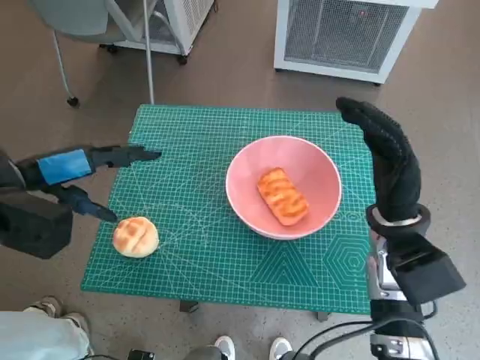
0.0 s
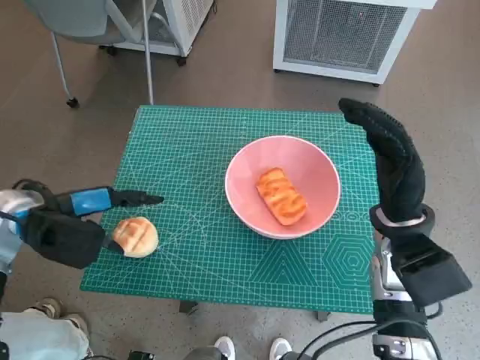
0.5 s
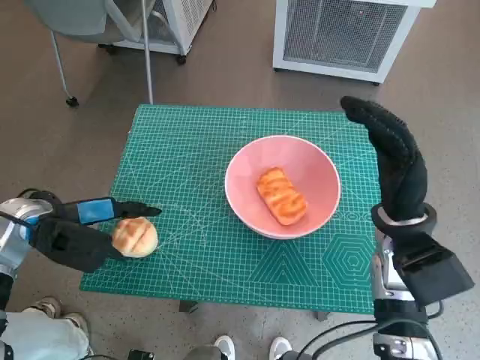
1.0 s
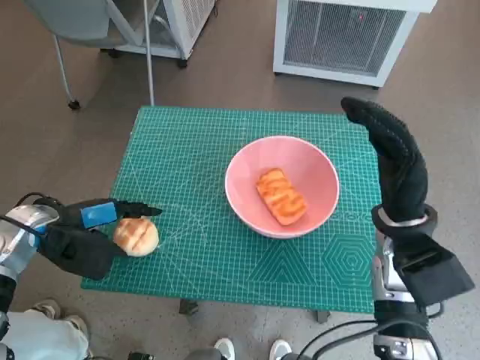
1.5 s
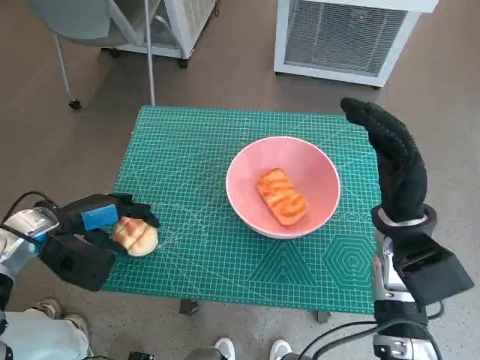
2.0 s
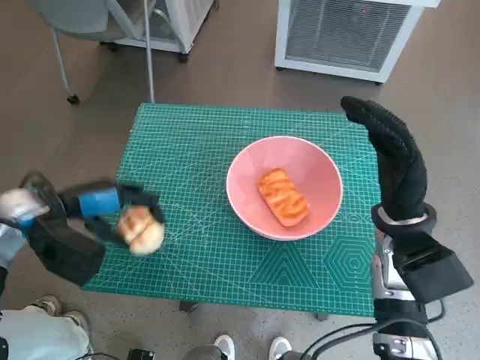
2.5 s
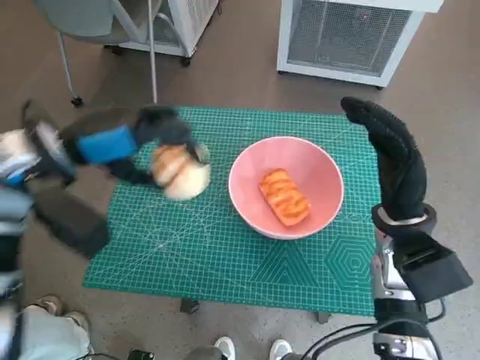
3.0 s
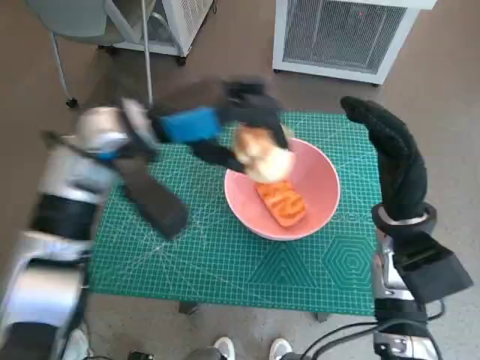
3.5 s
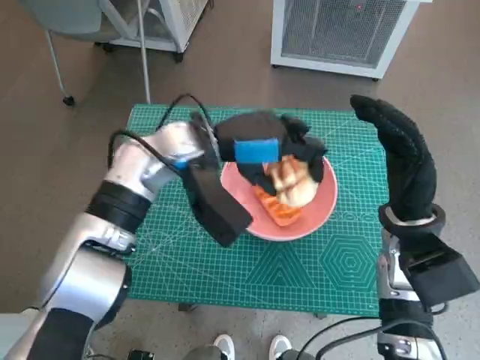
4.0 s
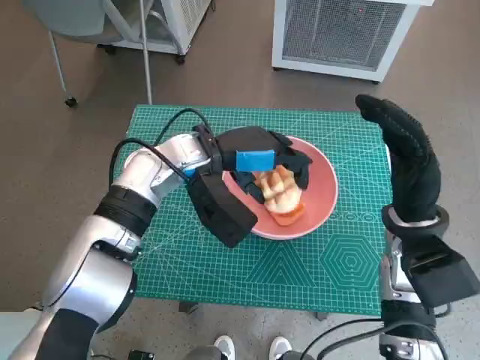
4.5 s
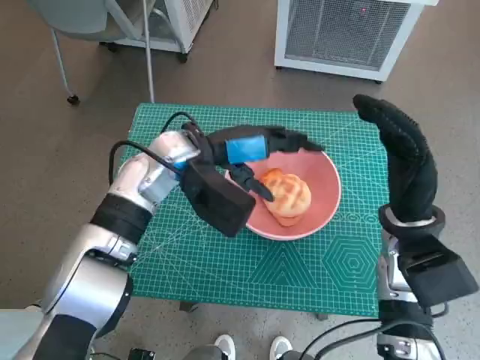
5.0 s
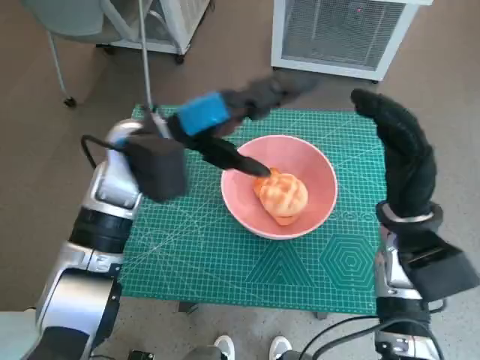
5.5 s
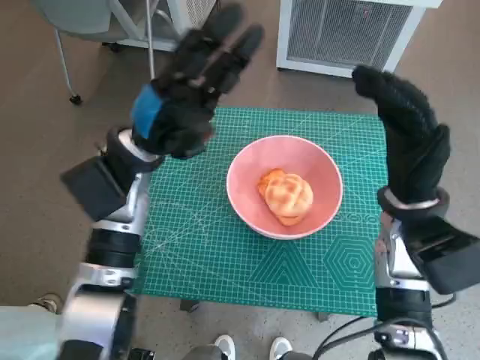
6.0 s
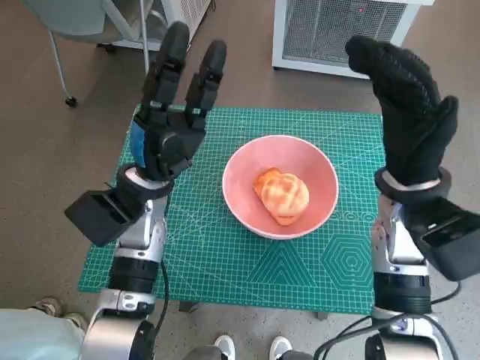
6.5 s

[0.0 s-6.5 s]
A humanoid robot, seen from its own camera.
Task of the whole recording: Push the bowl to the center of the table and put the bread into the bowl.
Step, 2.0 to 4.5 s: Place the round bread in pink bowl with left hand.
0.0 to 2.0 s: The left hand shifts about 10 cm downward.
2.0 to 4.5 s: The left hand goes roughly 20 cm to the right.
4.5 to 6.5 s: The left hand travels to the left by some 5 cm. The right hand ends up some 5 cm from where it was.

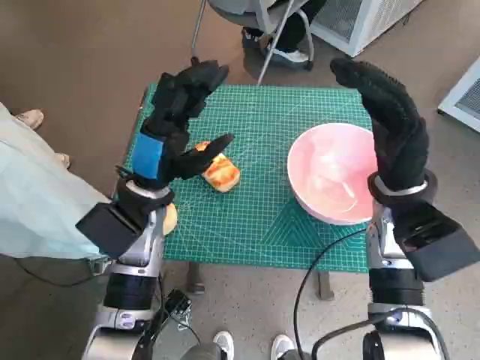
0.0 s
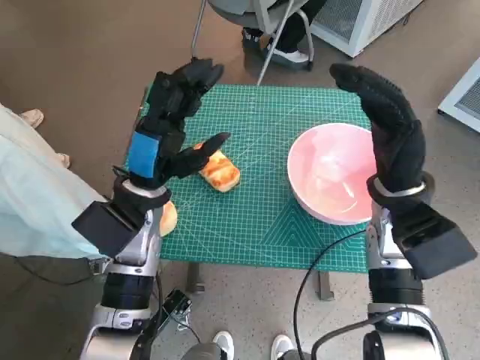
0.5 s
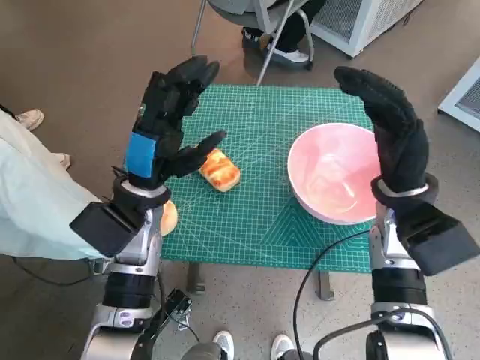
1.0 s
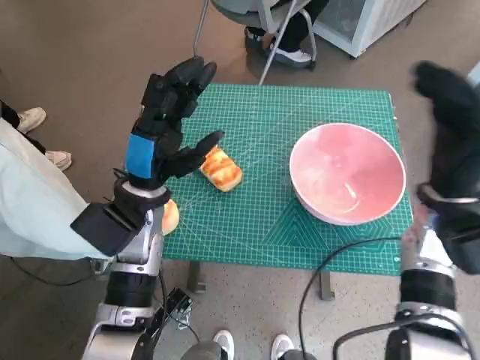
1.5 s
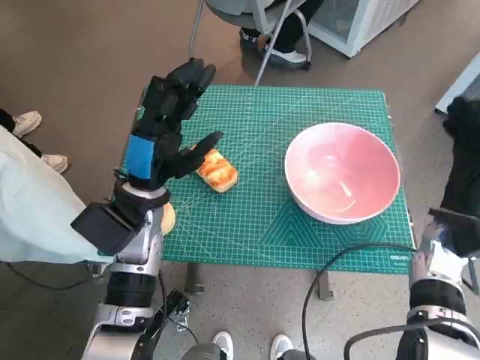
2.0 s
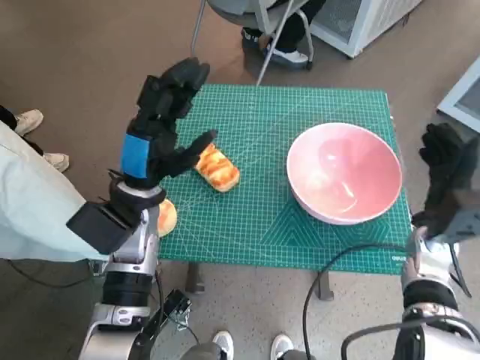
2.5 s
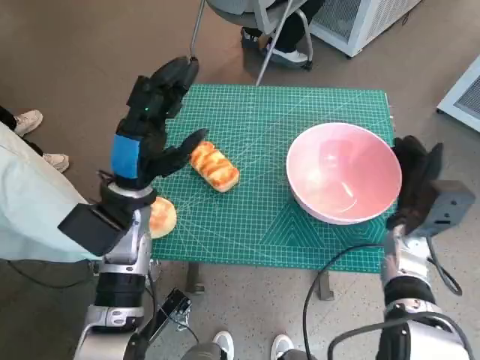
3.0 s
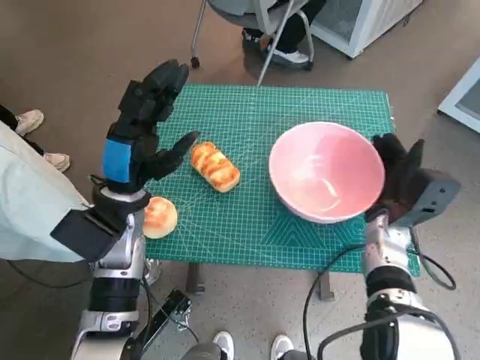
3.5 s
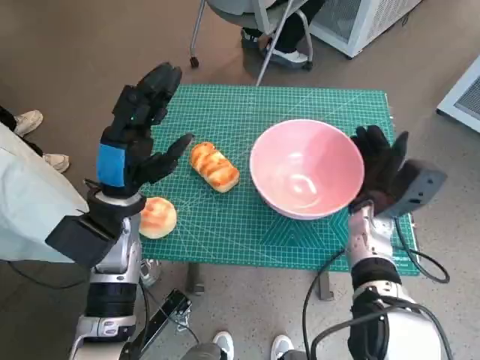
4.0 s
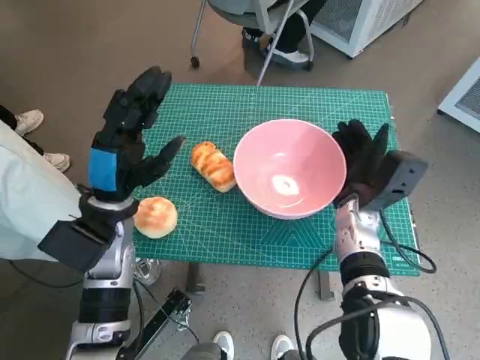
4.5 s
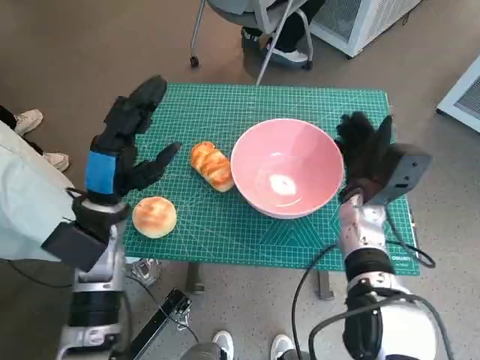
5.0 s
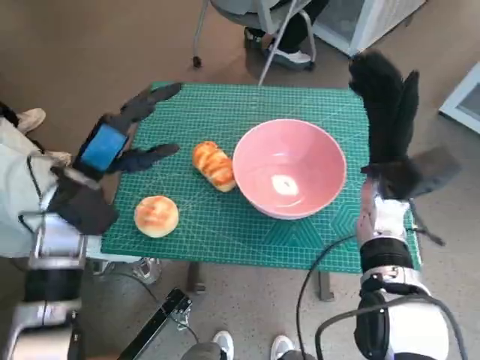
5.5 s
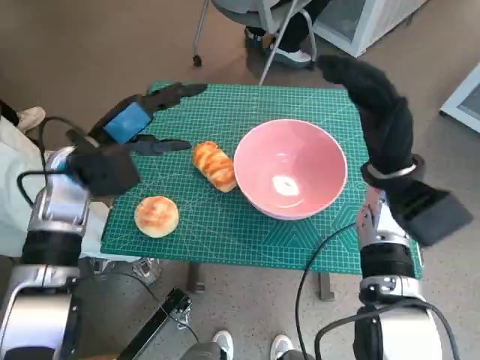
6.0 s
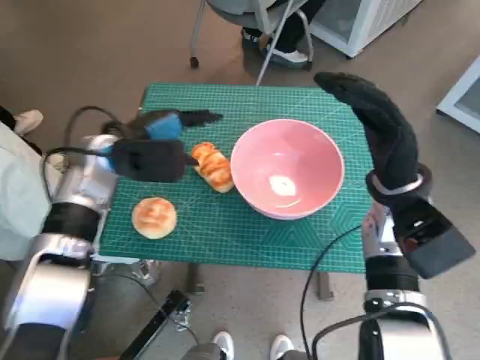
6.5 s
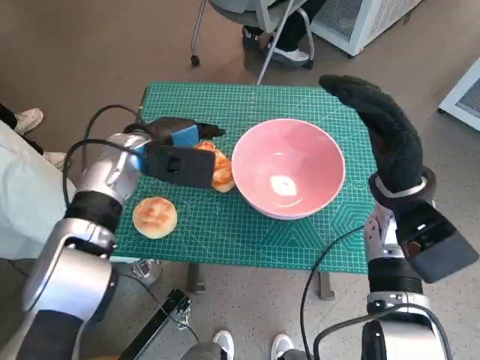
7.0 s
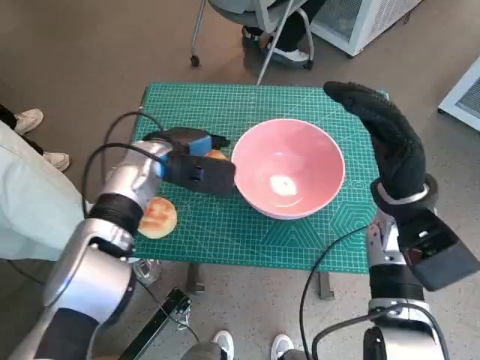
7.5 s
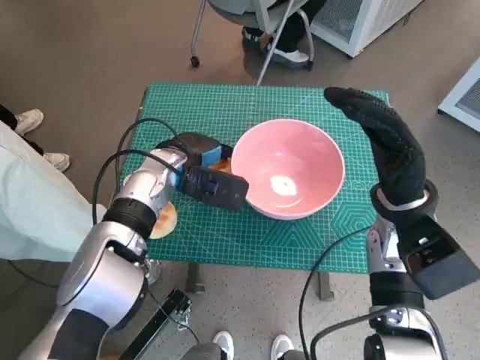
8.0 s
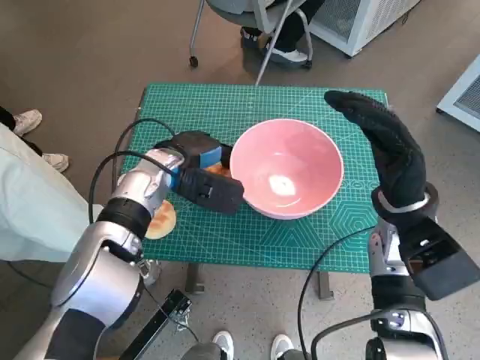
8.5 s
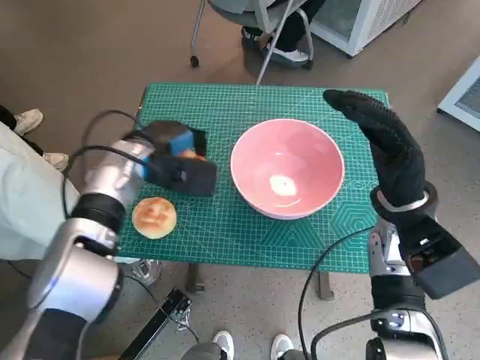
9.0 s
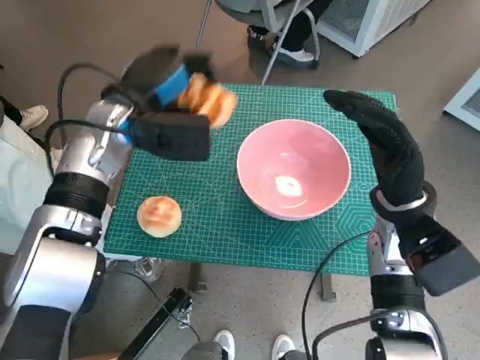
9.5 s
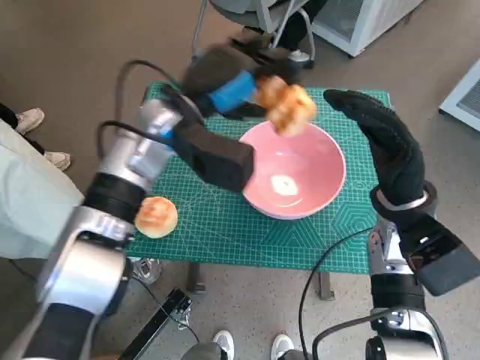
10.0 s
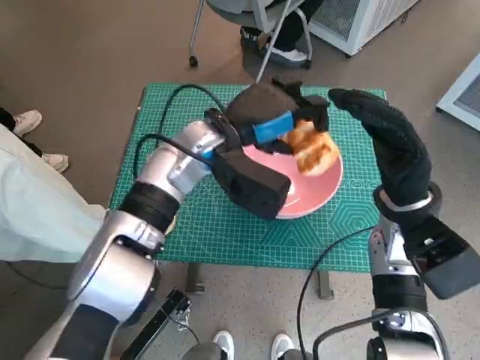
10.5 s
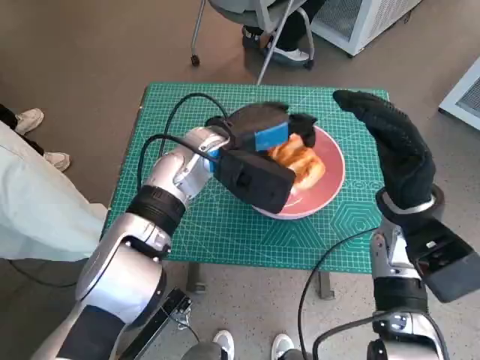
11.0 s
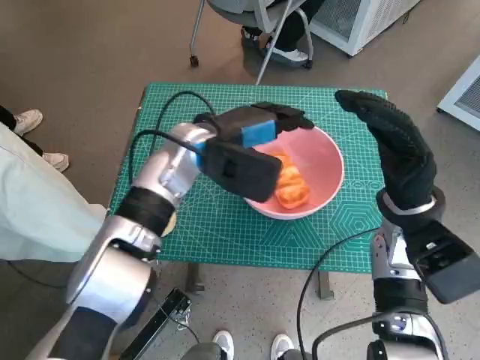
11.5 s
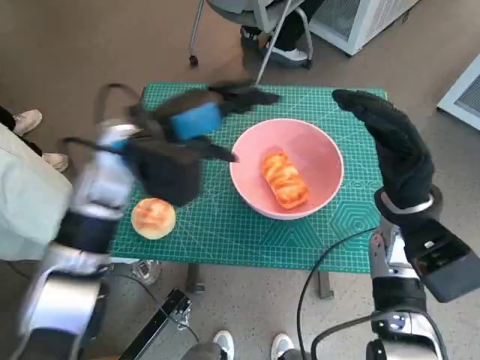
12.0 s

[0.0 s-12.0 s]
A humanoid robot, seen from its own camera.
Task of the whole recording: Push the bowl to the center of the table and put the bread into the bowl.
Step, 0.0 to 5.0 s: Move the pink bowl to the center of table with right hand.
Step, 5.5 to 8.5 s: Grasp the long bread with left hand.
Step, 9.0 to 11.0 s: Place the long bread in pink bowl with left hand.
2.0 to 4.0 s: The right hand shifts about 10 cm to the left.
4.0 to 6.0 s: The left hand goes some 5 cm upward; the right hand goes some 10 cm upward.
6.0 to 8.0 s: The left hand moves to the right and downward, roughly 10 cm.
8.0 to 10.0 s: The left hand moves upward, roughly 10 cm.

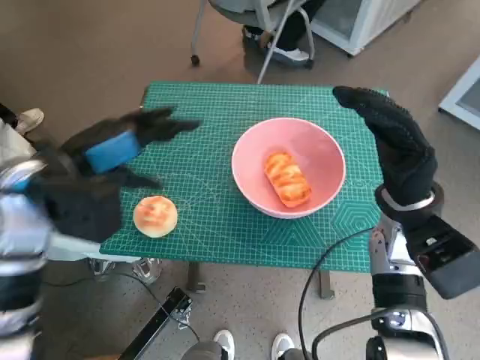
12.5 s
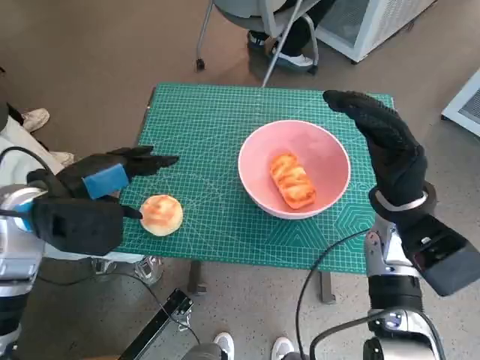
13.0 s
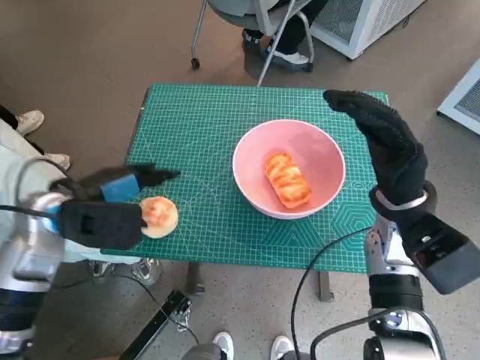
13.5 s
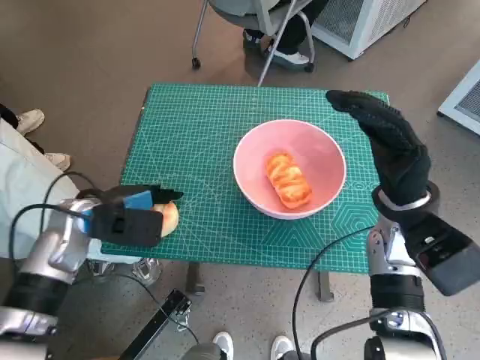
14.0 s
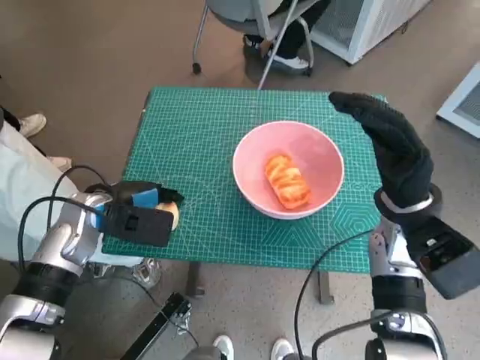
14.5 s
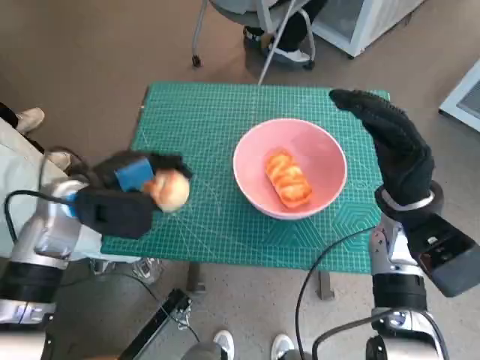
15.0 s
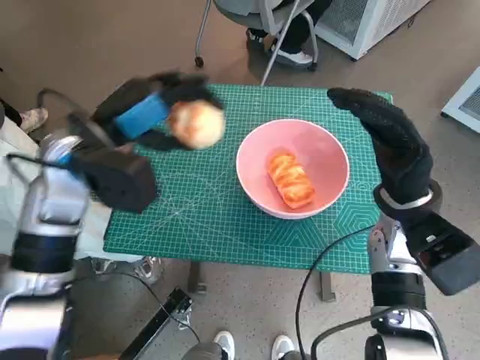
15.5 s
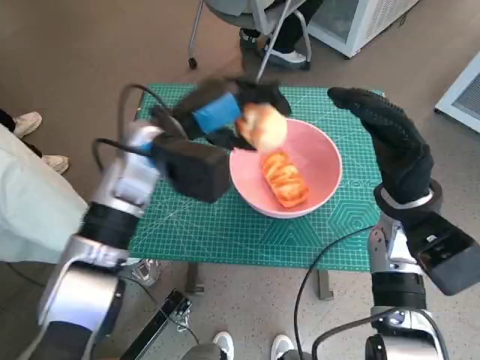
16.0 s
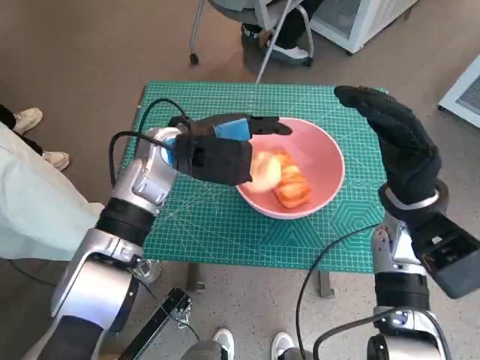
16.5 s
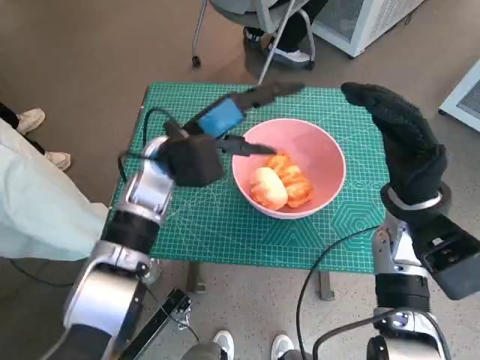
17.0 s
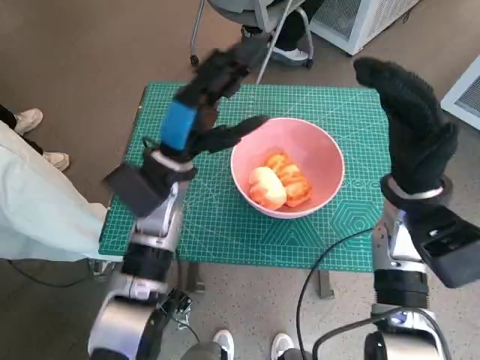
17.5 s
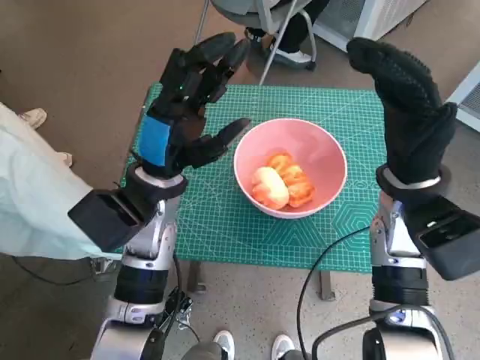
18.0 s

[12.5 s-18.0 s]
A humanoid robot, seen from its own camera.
Task of the whole recording: Push the bowl to the center of the table and put the bread into the bowl.
Step, 15.0 to 16.5 s: Place the round bread in pink bowl with left hand.
12.5 to 14.5 s: The left hand moves downward, roughly 10 cm.
14.5 to 16.0 s: The left hand moves upward and to the right, roughly 15 cm.
16.0 to 18.0 s: The left hand shifts roughly 5 cm downward.

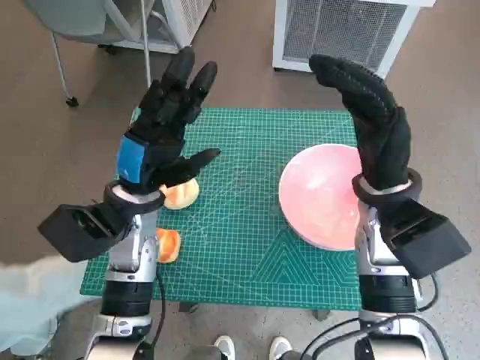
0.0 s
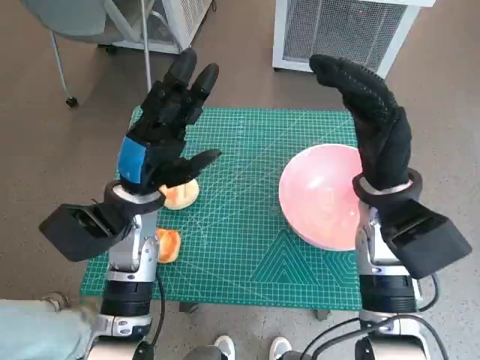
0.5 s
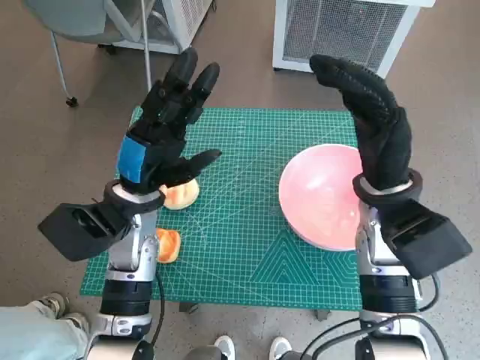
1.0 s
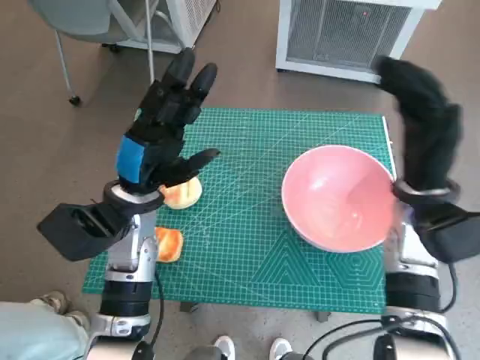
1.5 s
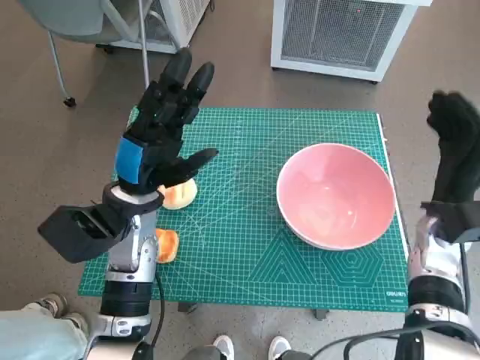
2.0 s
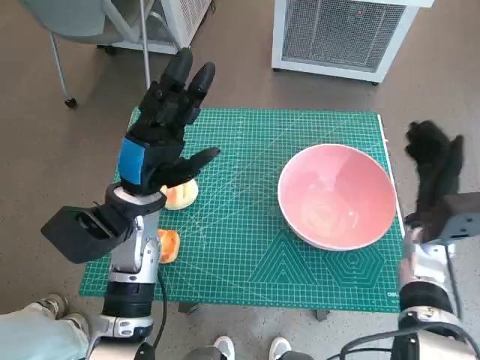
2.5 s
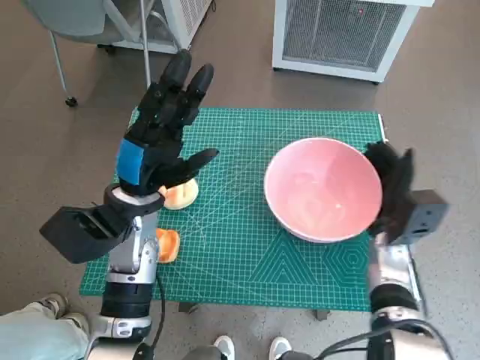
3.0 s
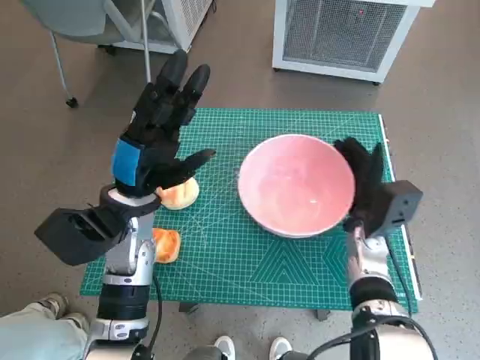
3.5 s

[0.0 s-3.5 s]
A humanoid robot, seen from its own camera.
Task of the whole recording: Push the bowl to the center of the table and put the bread into the bowl.
2.0 to 3.5 s: The right hand travels to the left and downward by roughly 10 cm.
